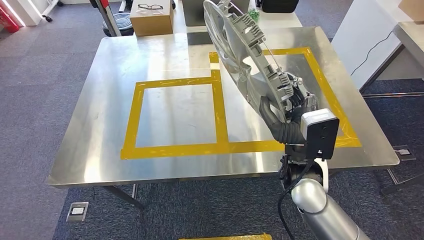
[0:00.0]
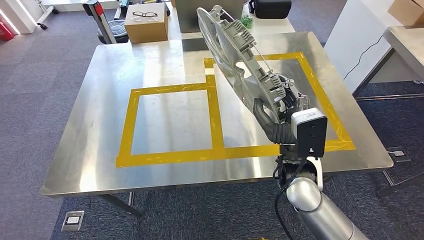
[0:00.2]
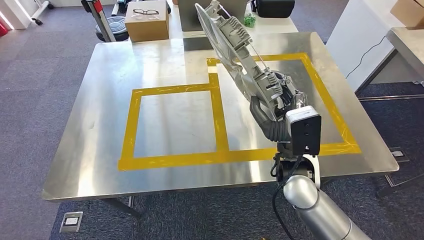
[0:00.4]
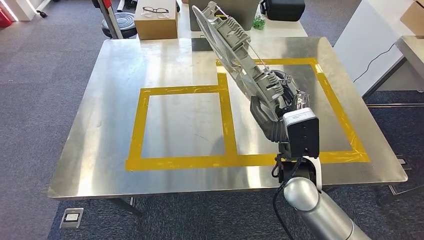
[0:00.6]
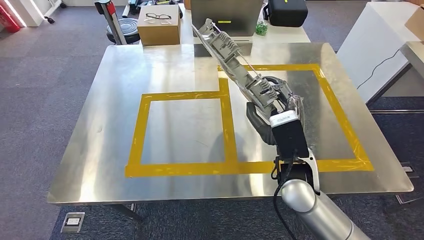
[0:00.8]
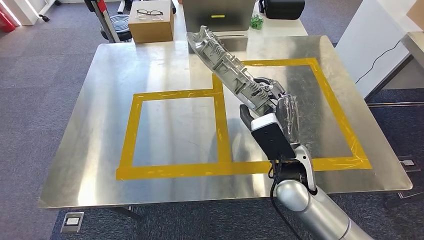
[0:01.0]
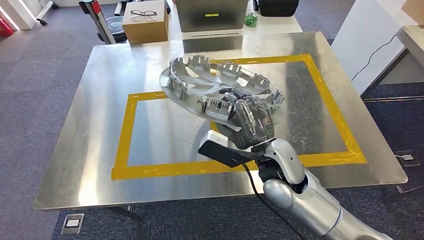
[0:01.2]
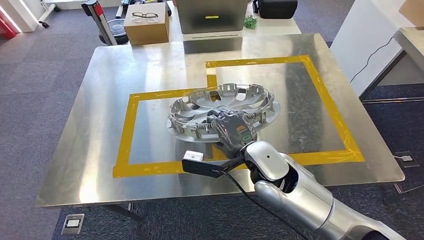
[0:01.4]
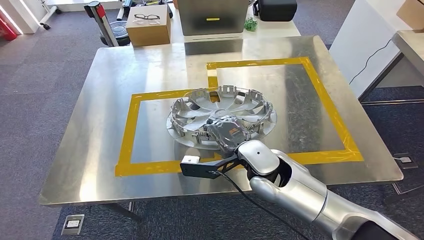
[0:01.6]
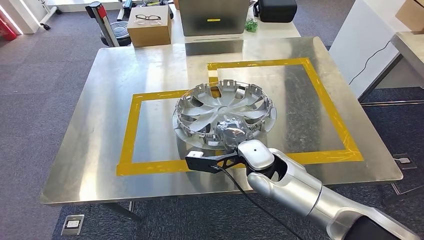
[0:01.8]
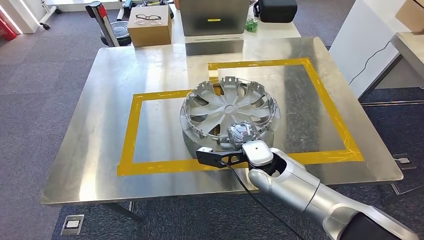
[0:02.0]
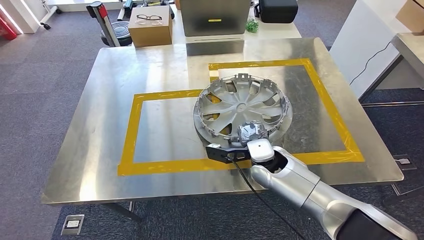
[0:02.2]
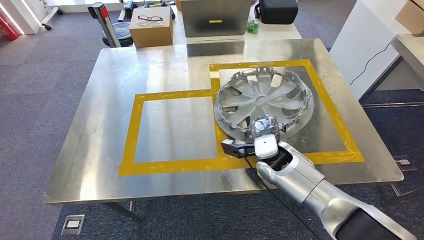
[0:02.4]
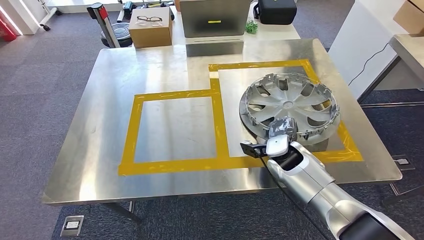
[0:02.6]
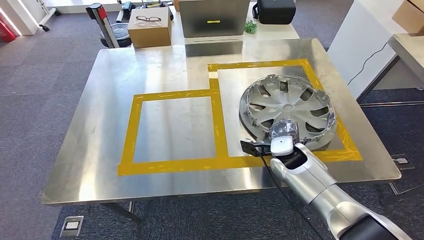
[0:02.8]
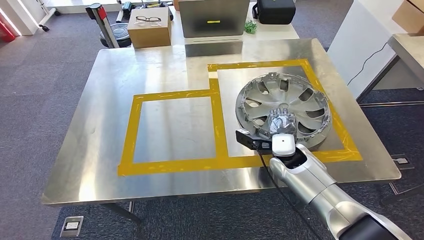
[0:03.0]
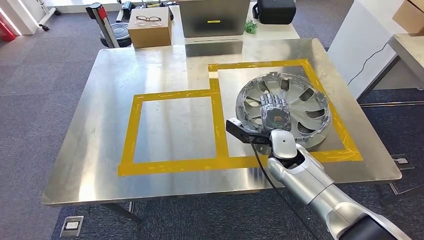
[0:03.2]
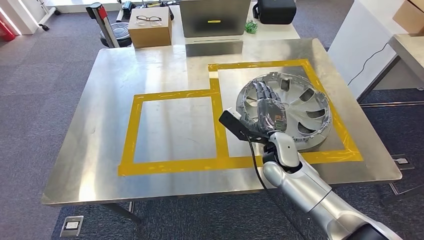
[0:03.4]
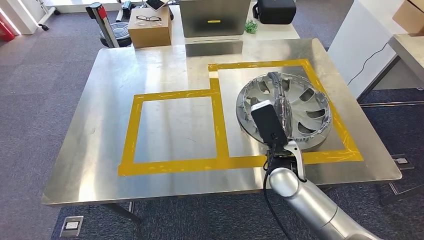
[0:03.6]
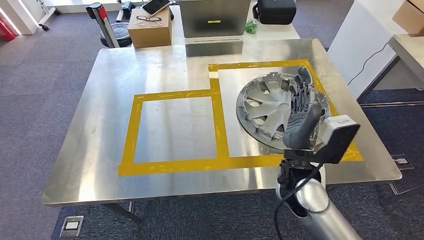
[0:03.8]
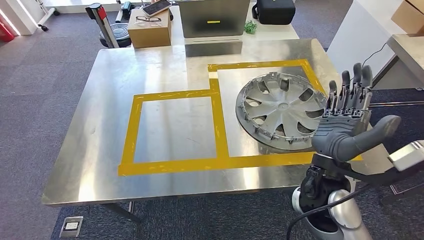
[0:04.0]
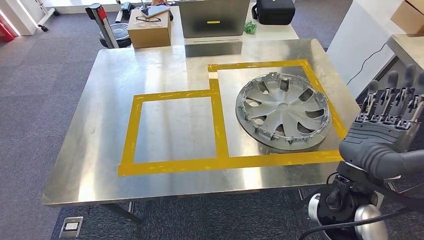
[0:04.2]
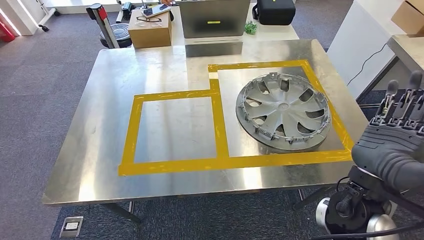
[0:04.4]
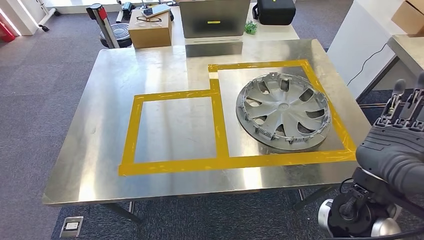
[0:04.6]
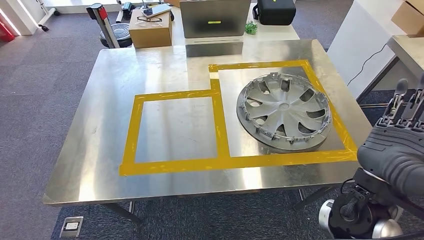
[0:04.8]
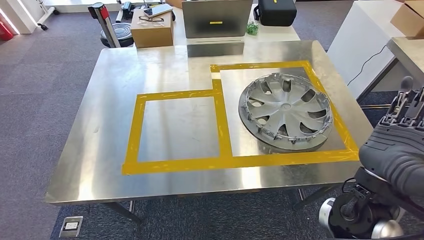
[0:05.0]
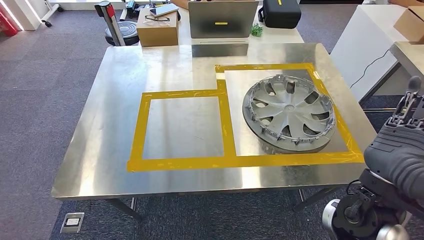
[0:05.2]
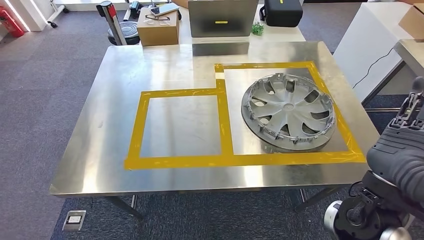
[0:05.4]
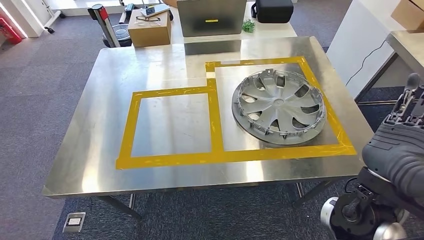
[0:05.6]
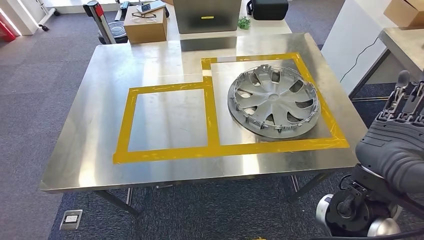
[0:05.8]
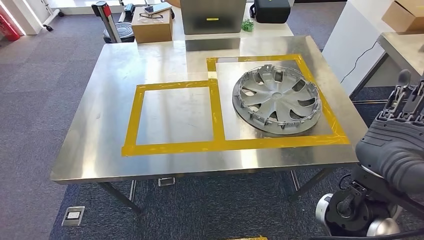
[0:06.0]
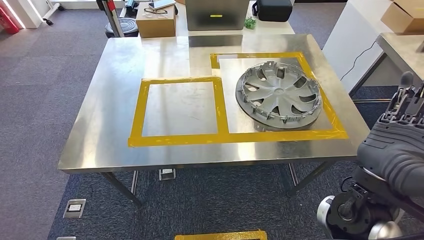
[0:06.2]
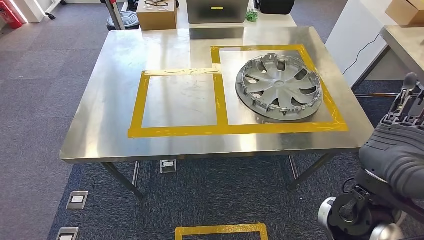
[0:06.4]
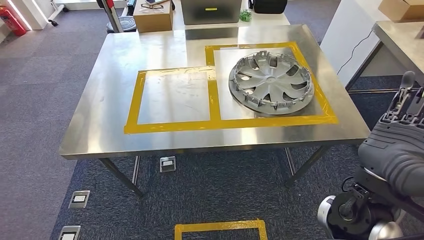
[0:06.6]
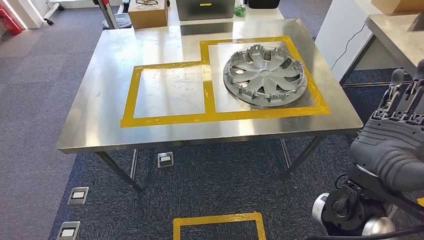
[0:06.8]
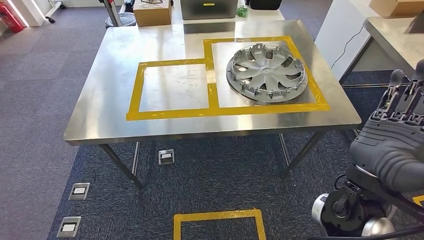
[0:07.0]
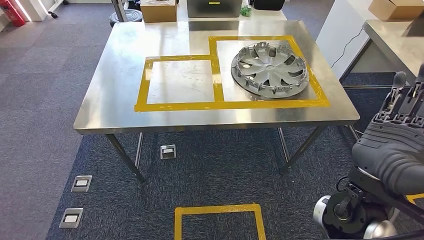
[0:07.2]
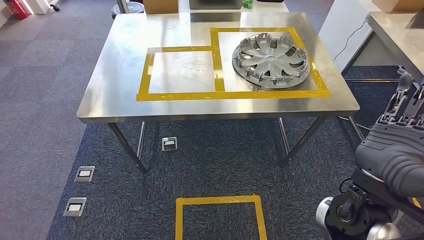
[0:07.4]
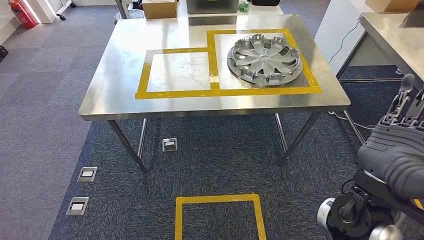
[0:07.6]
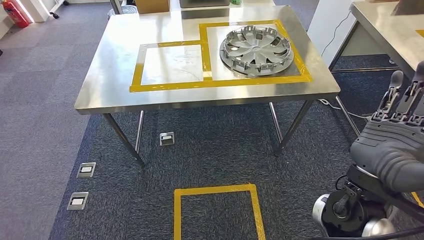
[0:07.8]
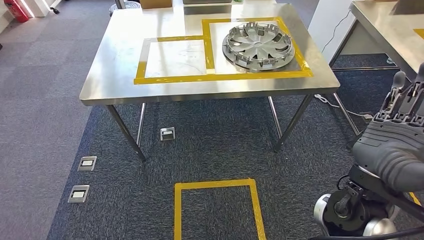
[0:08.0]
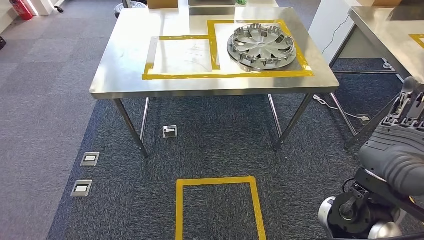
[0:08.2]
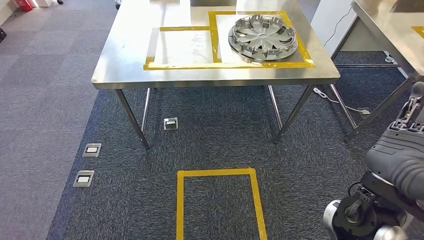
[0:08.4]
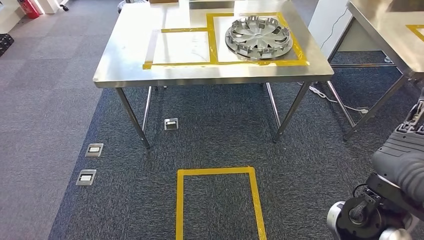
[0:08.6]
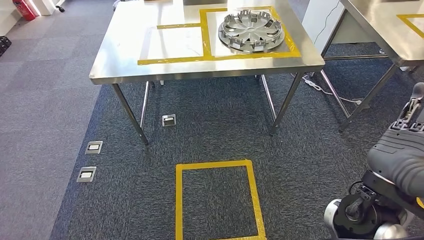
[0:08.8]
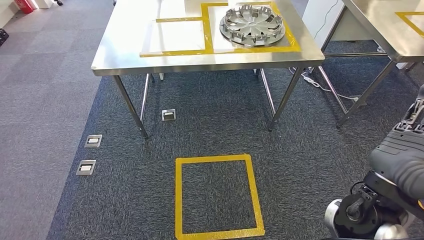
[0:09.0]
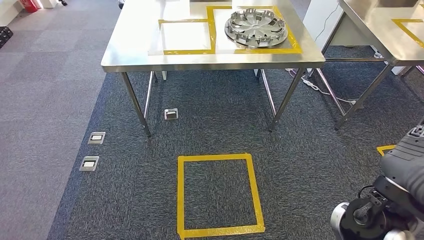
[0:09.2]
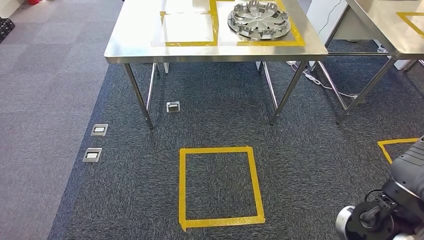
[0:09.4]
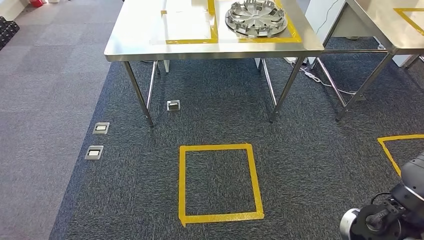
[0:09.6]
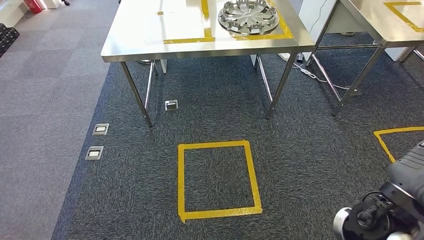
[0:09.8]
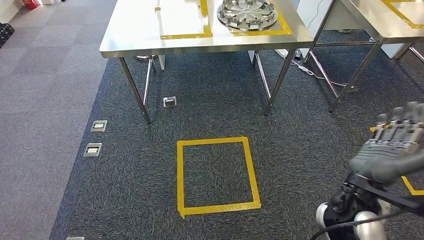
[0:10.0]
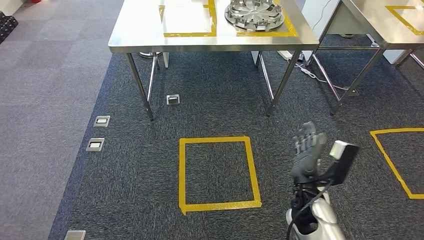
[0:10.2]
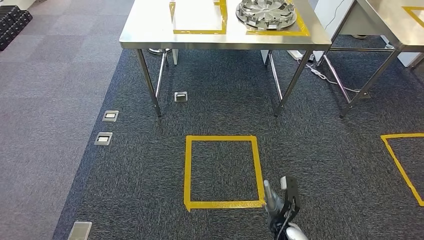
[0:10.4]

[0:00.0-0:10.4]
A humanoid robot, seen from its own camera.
Step, 0:00.0 to 0:04.8: Insert the large material into the corresponding slot on the workbench.
Step, 0:05.8 to 0:10.4: Move to the initial position of the shelf.
0:03.0 to 0:04.4: The right hand moves backward and upward, roughly 20 cm.

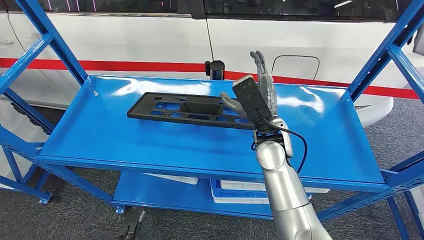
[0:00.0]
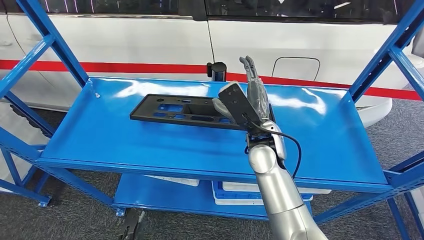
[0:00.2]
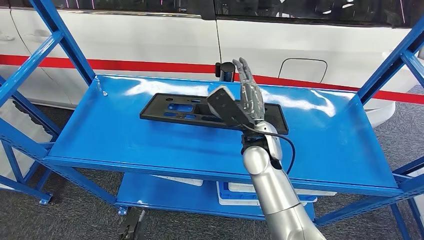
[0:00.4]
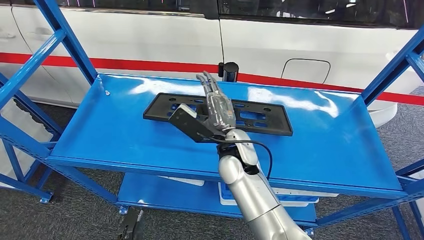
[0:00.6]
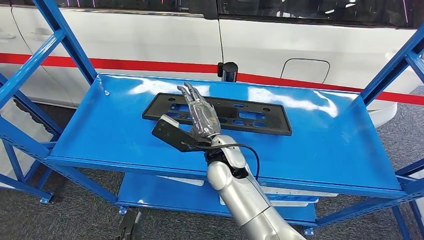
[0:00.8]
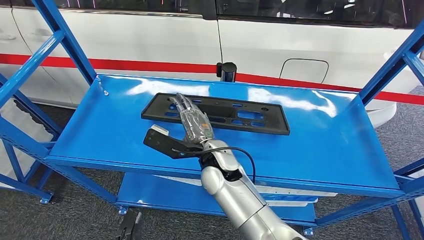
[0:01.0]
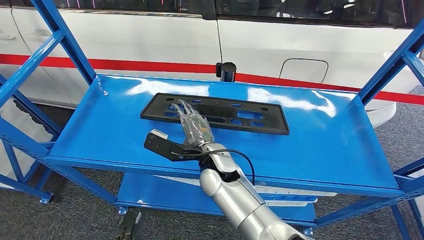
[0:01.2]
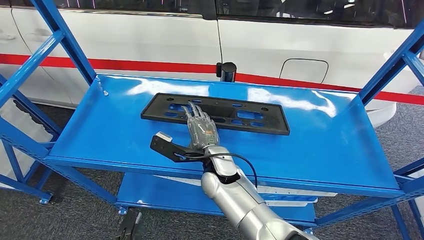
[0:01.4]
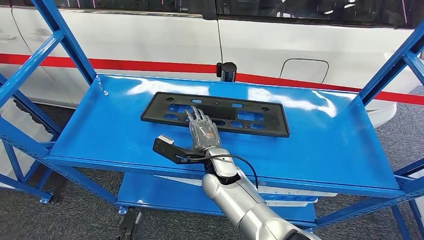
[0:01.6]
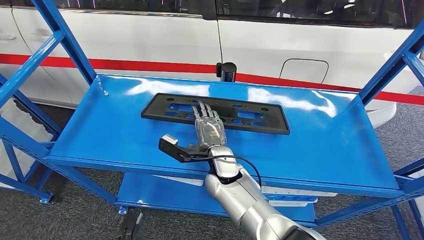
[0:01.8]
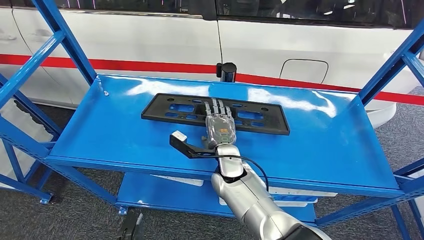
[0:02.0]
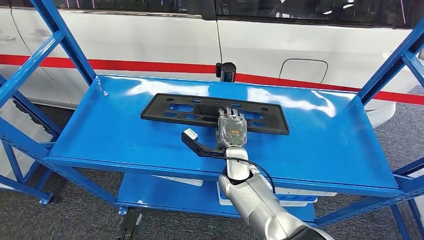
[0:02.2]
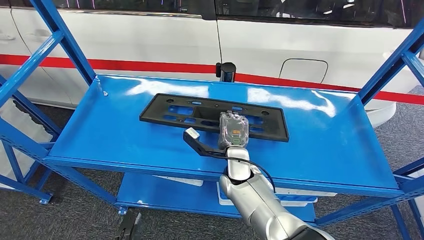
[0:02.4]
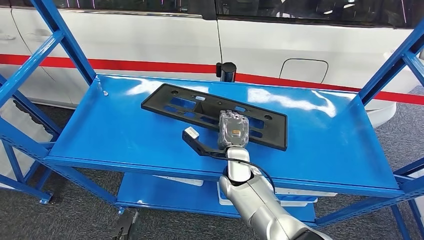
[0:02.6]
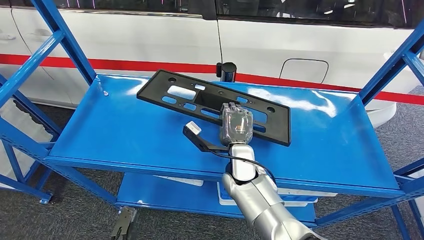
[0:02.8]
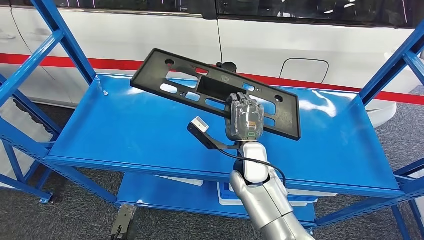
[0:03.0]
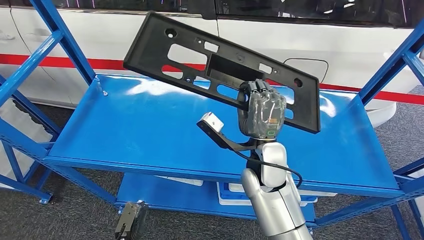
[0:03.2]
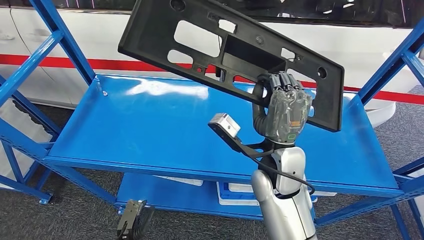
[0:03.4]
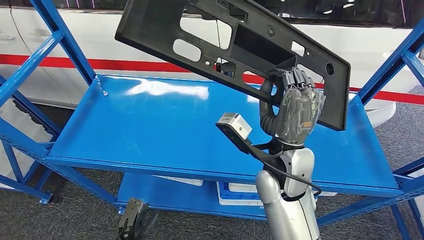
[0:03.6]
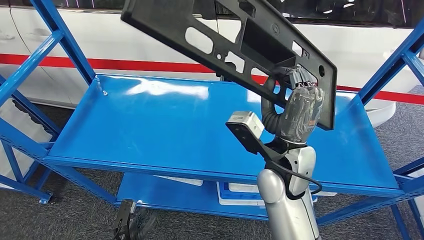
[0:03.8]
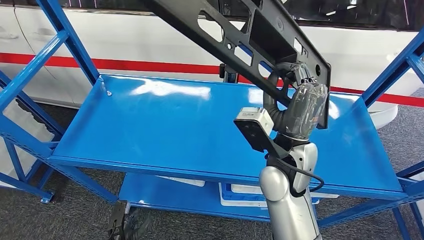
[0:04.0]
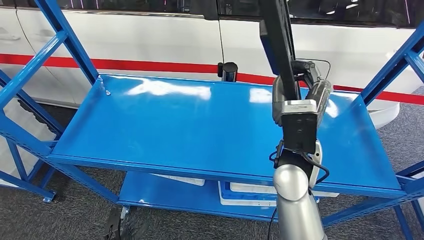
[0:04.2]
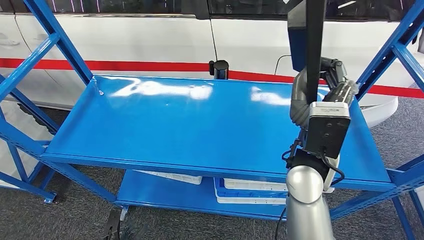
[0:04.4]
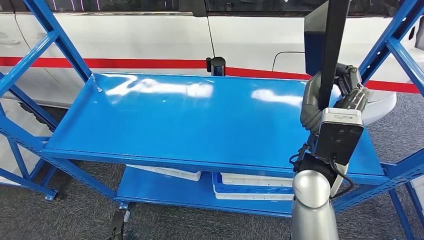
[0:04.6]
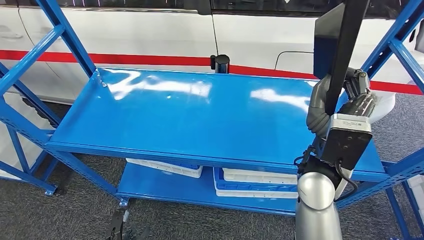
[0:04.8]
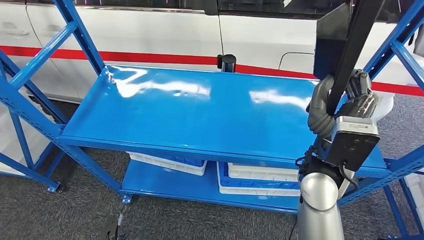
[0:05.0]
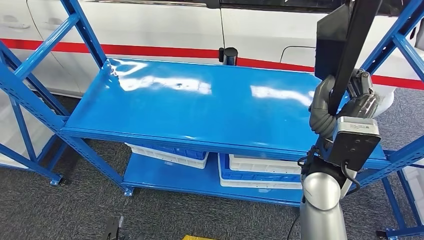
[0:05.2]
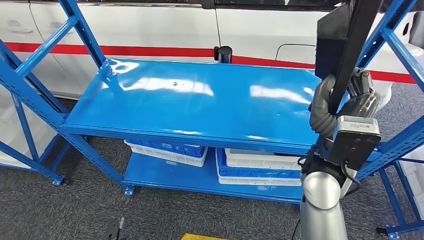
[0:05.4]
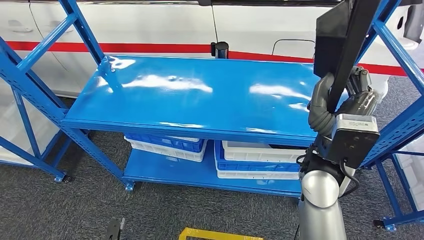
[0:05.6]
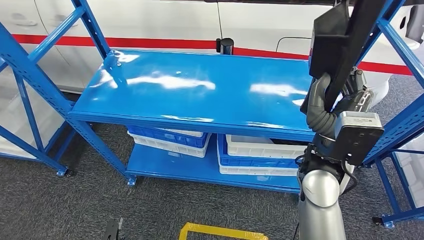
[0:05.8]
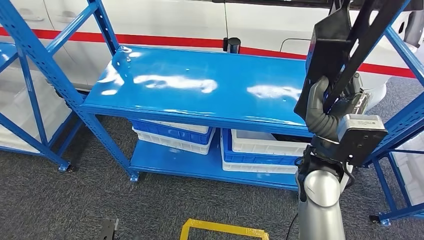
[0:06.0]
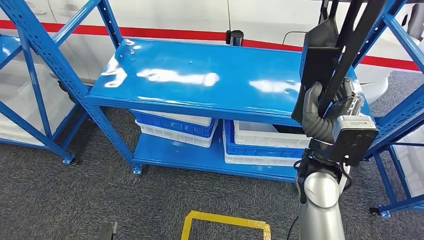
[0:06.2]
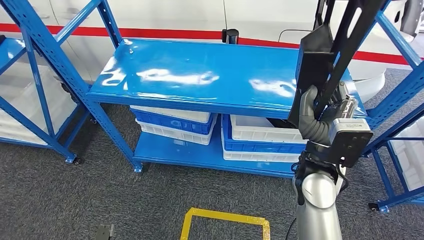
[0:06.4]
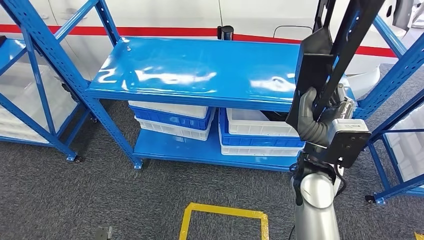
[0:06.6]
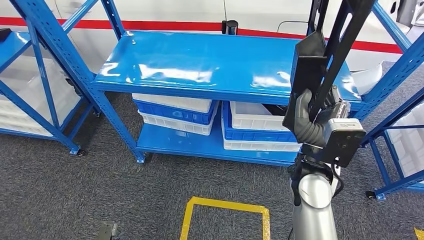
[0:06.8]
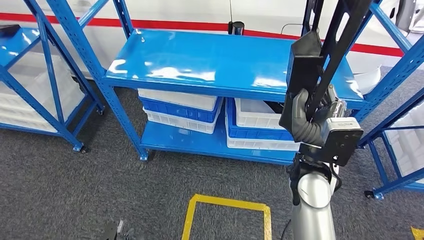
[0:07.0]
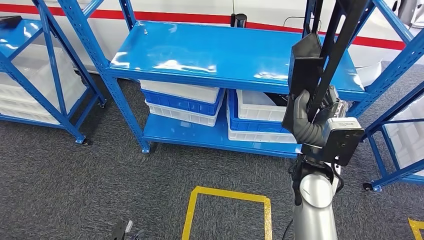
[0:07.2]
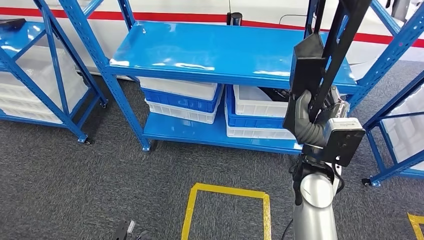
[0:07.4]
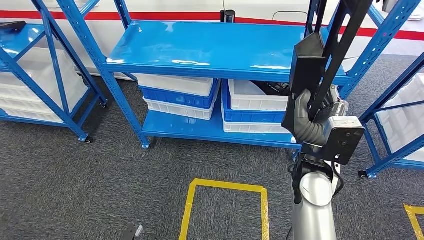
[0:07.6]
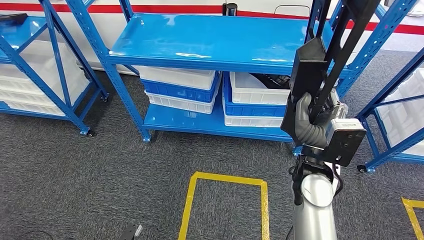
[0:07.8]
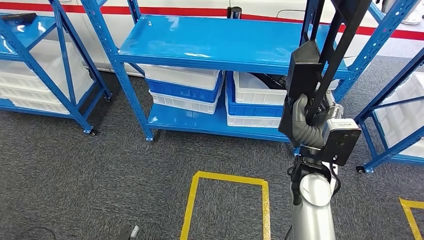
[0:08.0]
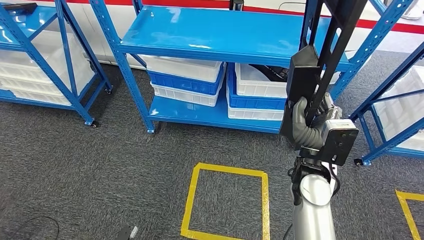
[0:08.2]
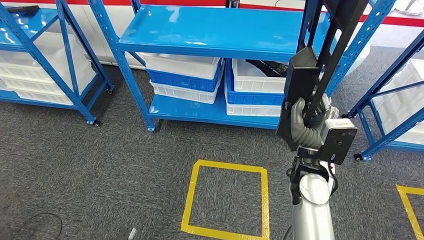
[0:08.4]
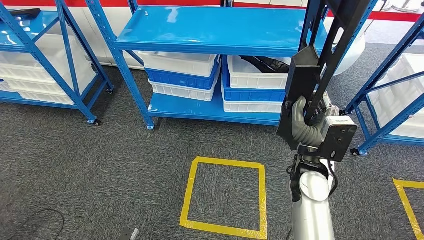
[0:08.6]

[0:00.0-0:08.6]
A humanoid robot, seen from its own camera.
Step, 0:00.0 to 0:04.0: Pick up the large material from the shelf.
0:01.4 to 0:02.8: The right hand ends up some 5 cm from where it was.
